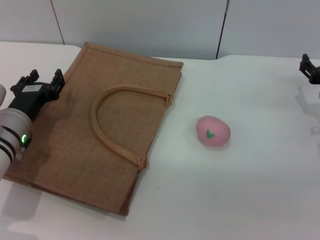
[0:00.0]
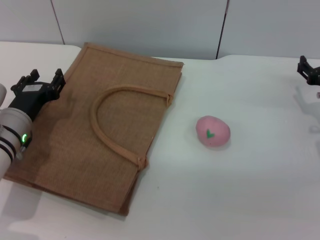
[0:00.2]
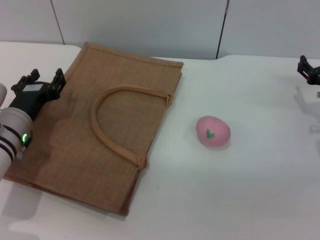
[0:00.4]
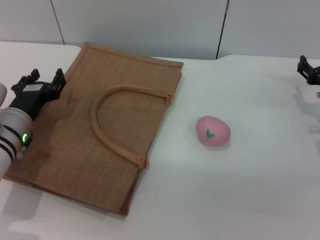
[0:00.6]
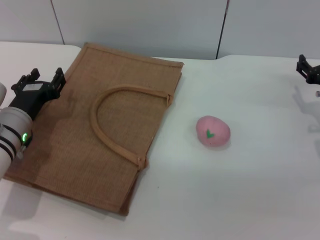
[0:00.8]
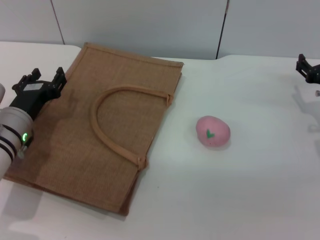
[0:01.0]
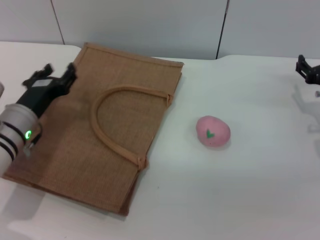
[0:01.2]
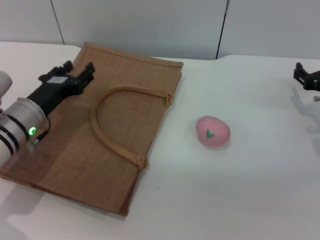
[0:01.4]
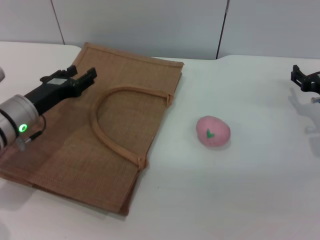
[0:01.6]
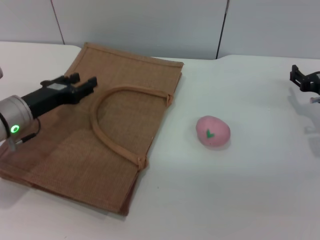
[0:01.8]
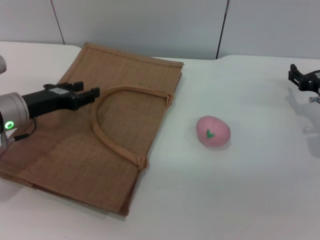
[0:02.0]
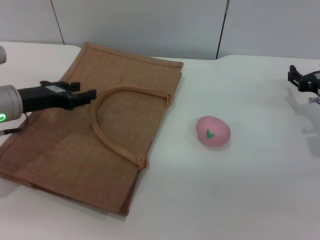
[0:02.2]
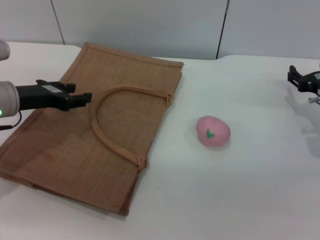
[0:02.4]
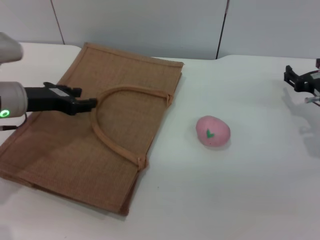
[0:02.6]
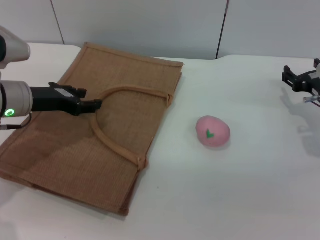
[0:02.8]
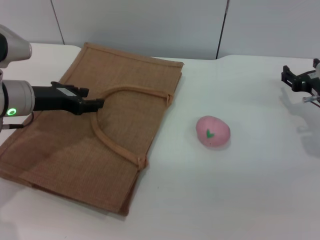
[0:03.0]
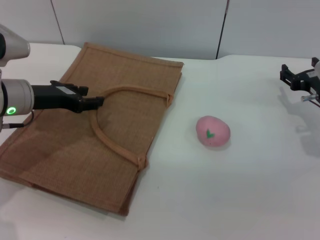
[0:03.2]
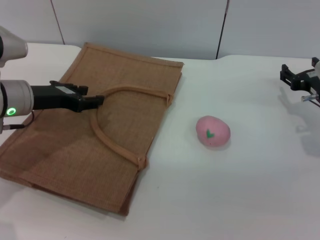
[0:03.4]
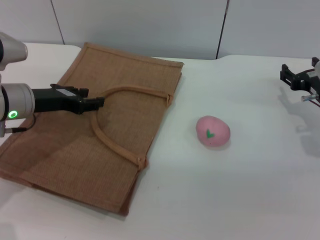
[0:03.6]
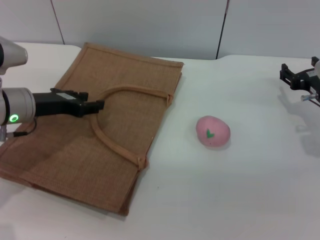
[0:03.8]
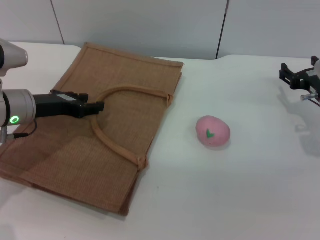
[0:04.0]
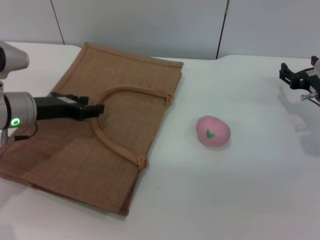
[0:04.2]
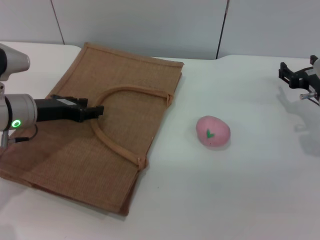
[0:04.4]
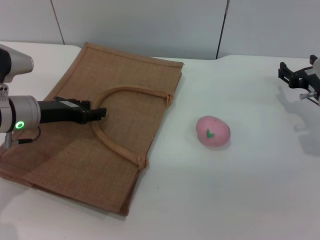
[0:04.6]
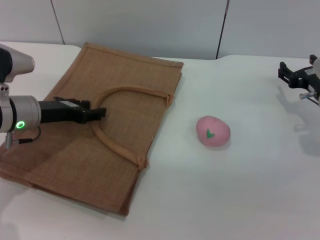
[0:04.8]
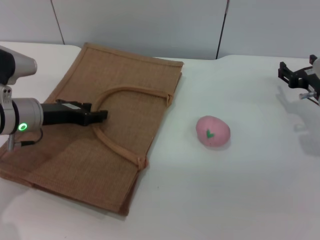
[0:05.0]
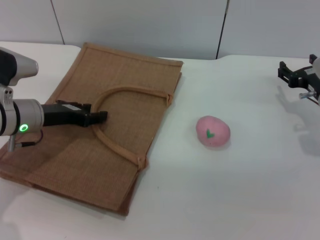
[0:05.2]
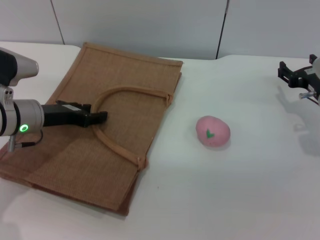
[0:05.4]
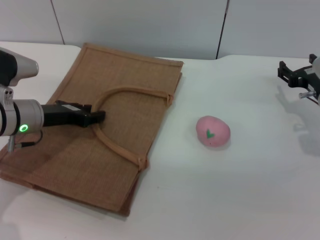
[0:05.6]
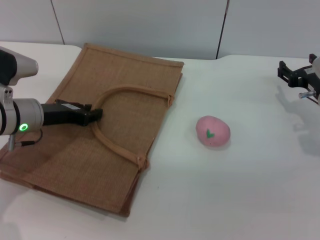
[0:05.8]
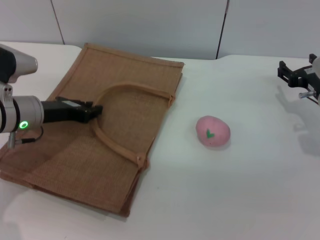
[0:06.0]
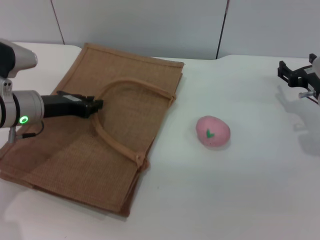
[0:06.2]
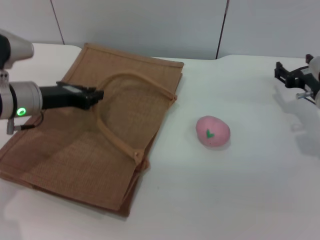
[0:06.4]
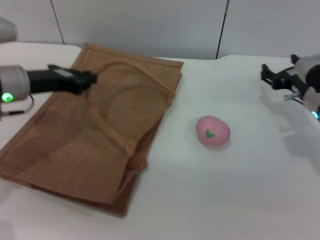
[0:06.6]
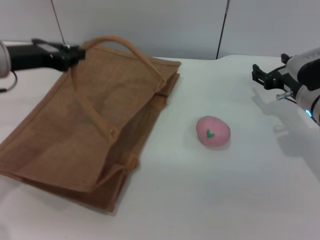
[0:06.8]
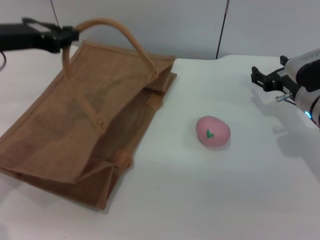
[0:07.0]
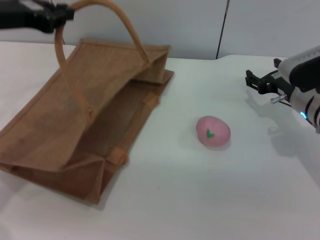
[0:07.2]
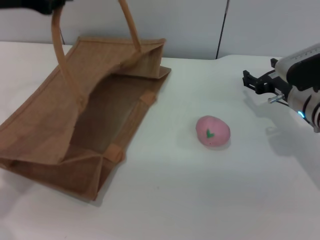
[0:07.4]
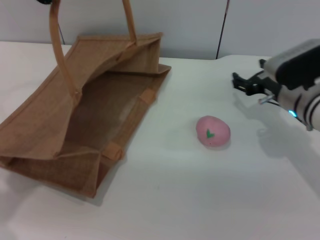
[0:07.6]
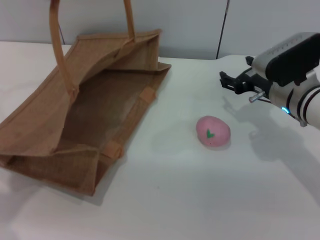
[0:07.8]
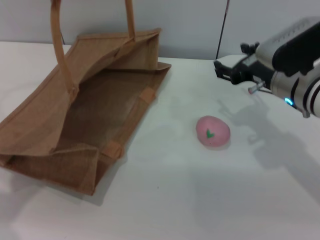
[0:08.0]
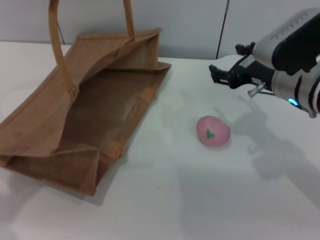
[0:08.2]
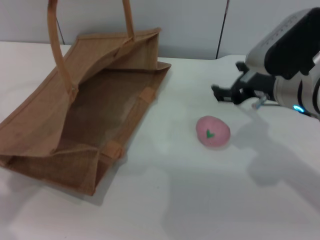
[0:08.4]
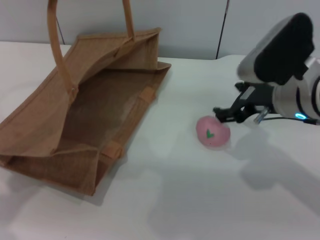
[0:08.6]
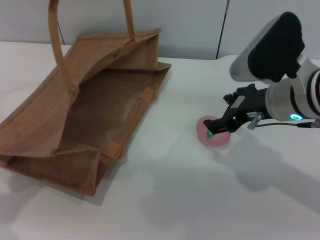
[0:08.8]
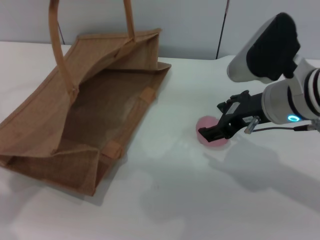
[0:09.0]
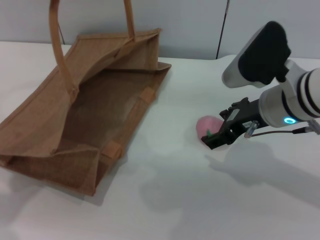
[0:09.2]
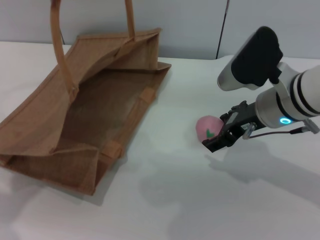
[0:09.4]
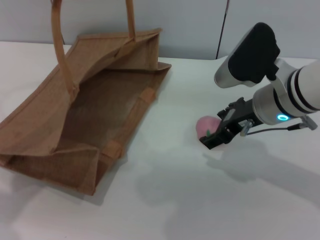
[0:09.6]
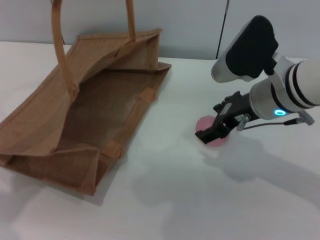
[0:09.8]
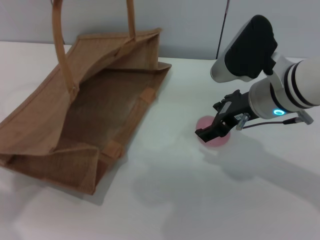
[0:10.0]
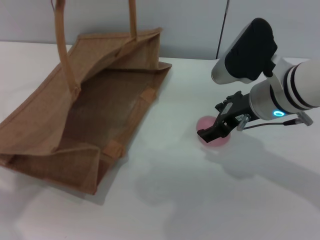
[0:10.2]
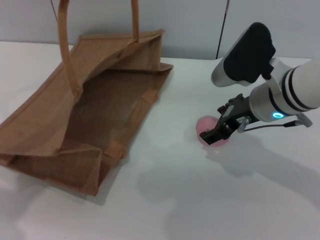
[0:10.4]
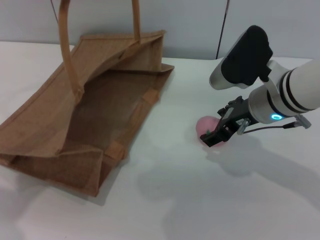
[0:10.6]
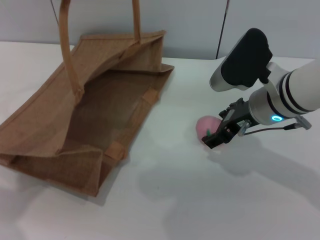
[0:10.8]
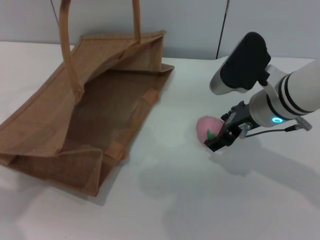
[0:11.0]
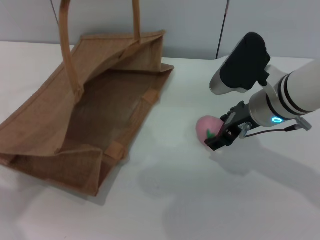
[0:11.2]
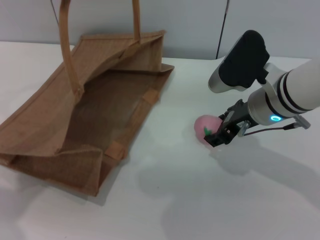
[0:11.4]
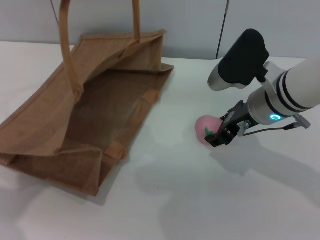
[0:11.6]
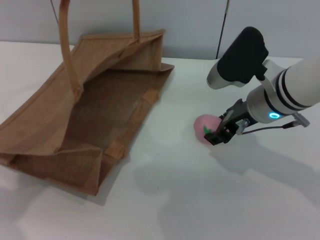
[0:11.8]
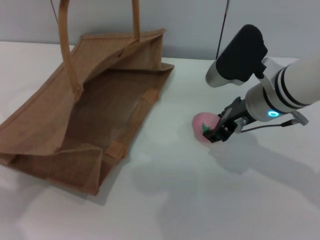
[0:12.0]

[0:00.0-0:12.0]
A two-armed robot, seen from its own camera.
Task of the whole recording: pick up the peach from the table and place it in the brown handbag.
Step, 0:00.0 to 0:06.8: Lift the woven bag with the left gripper to open it.
0:01.6 to 0:03.0: The left gripper shifts about 5 cm upward.
0:03.0 to 0:04.4: There are only small adjustments of the grippers.
0:04.4 to 0:06.0: The left gripper closes.
0:06.0 to 0:07.6: The right gripper moves to the left, approximately 5 cm; the left gripper heads upward, covering about 20 cm.
0:07.6 to 0:09.0: The right gripper moves upward, backward and to the left, some 10 cm.
0:09.0 to 0:10.4: The grippers move only a little.
0:10.4 to 0:12.0: The right gripper closes up.

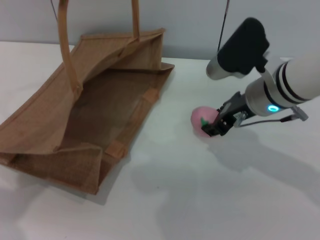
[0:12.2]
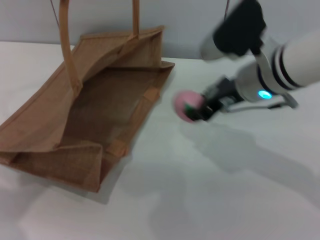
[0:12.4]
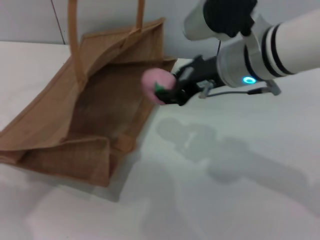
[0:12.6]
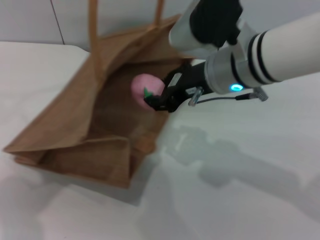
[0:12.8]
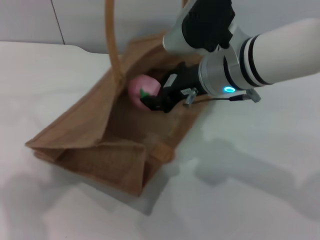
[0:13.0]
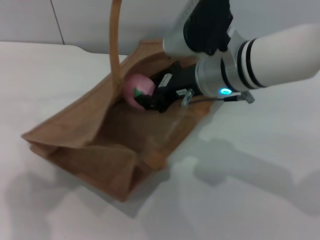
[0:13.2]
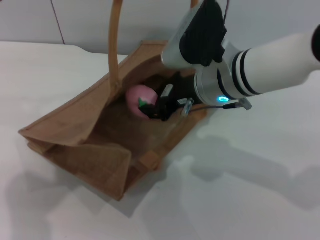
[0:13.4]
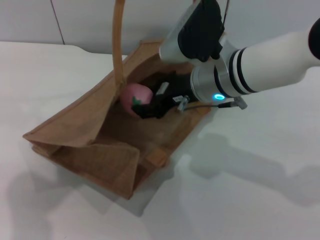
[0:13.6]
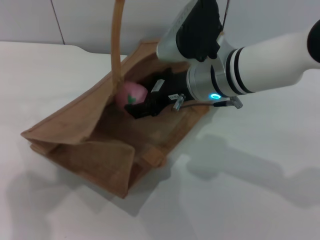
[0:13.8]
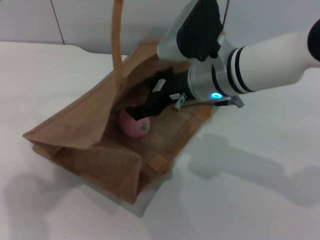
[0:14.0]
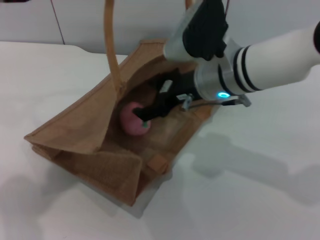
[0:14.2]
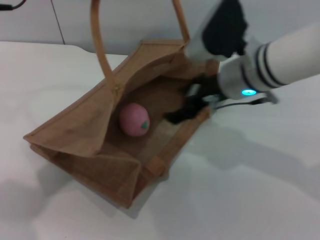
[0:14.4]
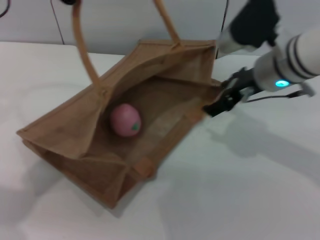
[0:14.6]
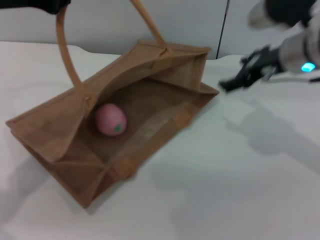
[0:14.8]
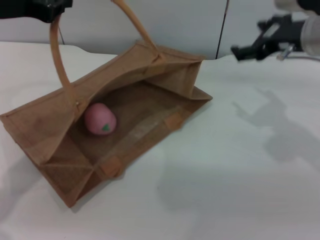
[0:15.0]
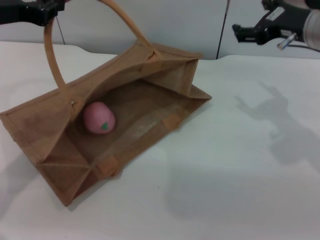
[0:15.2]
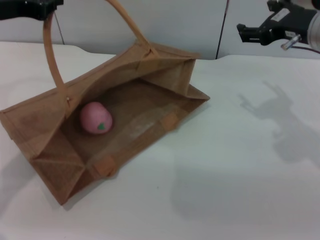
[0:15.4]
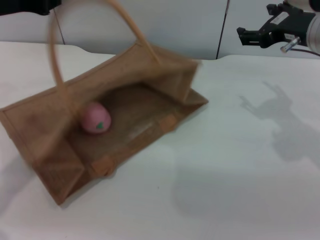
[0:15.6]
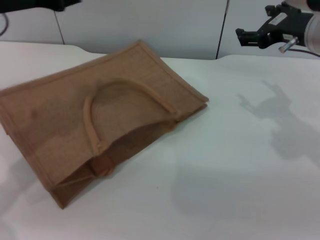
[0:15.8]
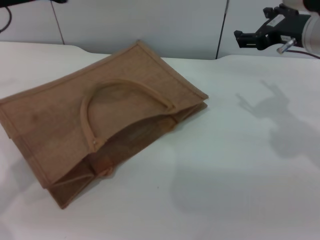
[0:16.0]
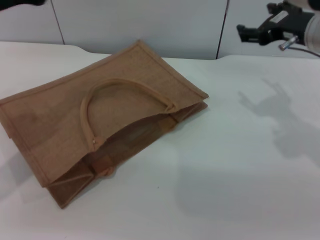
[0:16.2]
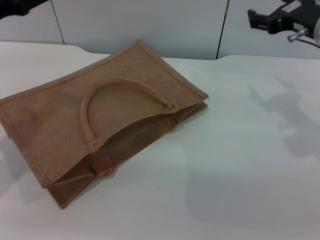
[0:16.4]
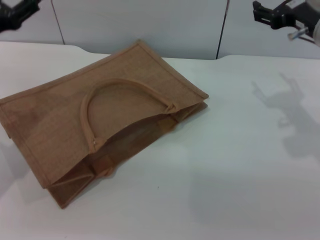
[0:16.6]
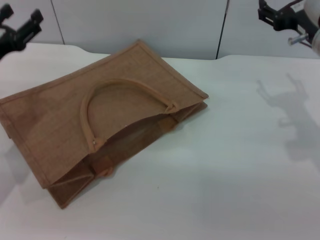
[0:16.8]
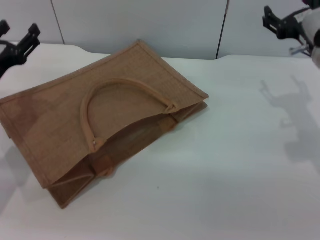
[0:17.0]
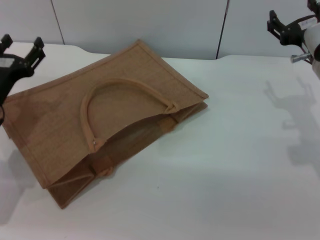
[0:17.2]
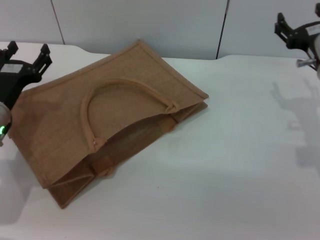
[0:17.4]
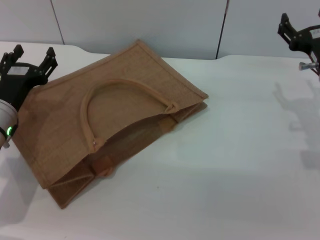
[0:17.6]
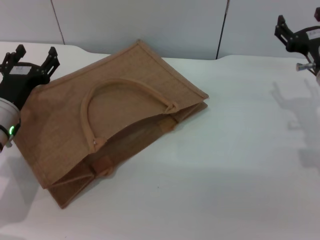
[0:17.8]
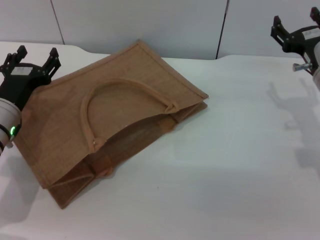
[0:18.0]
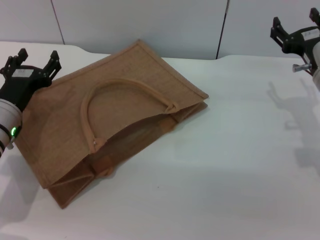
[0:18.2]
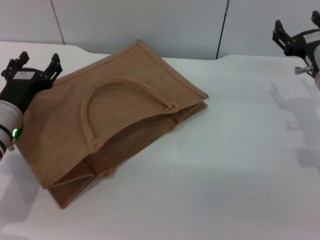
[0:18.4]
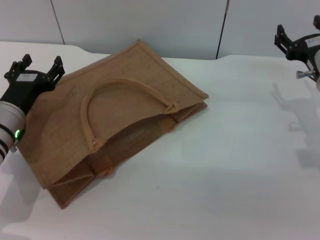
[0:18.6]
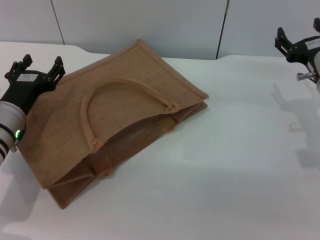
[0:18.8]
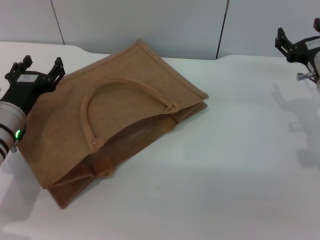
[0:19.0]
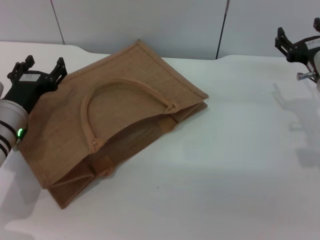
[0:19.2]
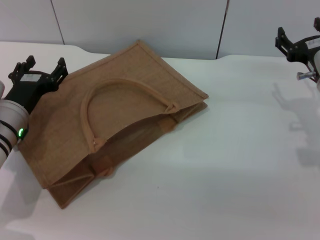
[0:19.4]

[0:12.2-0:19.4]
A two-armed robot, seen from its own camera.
Task of the whole recording: pick up the peach from the table and place it in the brown handbag.
Step, 0:12.4 to 0:14.2: Place the peach into the woven bag with the right gripper.
Step, 0:14.4 to 0:16.0: Lower the woven bag with the left gripper to close it.
0:12.2 to 0:13.6: The right gripper shifts roughly 5 cm to the left. The left gripper travels to the right by some 5 cm.
0:13.6 to 0:15.0: The left gripper heads to the left and downward, covering roughly 10 cm; the right gripper shifts approximately 15 cm to the right and upward, and opens its fingers.
0:15.0 to 0:16.6: The left gripper is displaced downward by approximately 10 cm, and opens up.
0:16.6 to 0:18.0: The right gripper is displaced downward by about 10 cm. The left gripper moves downward and to the right, some 10 cm.
0:18.0 to 0:19.4: The grippers stay close to where they were, moving slightly.
